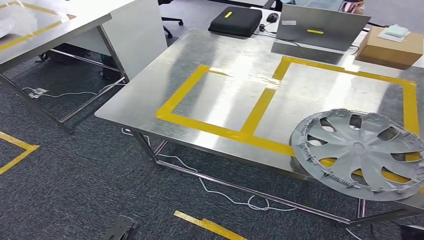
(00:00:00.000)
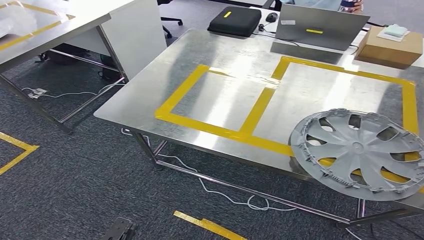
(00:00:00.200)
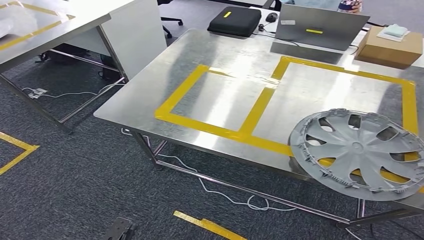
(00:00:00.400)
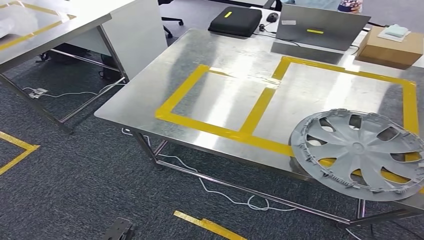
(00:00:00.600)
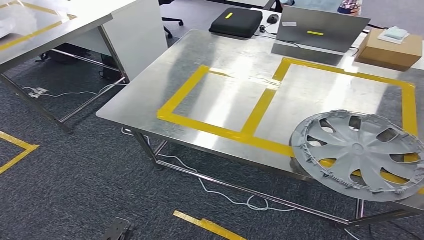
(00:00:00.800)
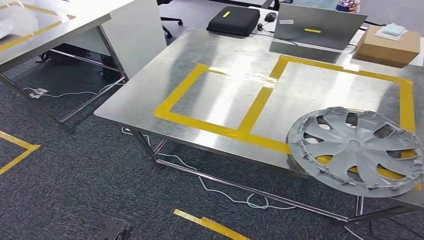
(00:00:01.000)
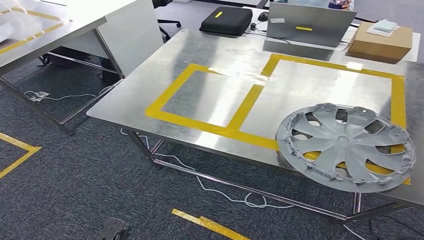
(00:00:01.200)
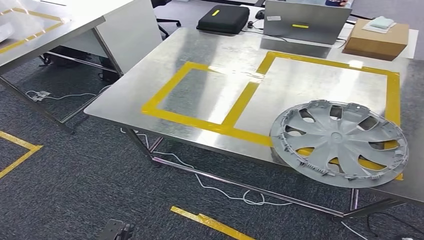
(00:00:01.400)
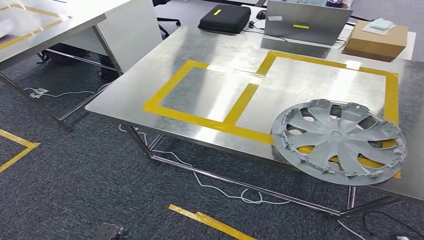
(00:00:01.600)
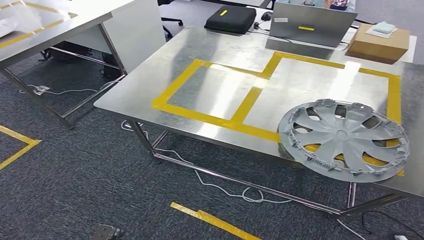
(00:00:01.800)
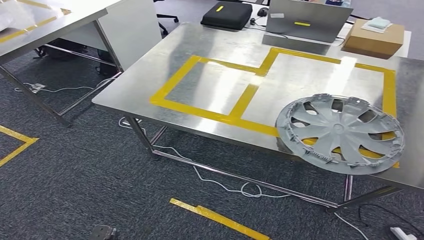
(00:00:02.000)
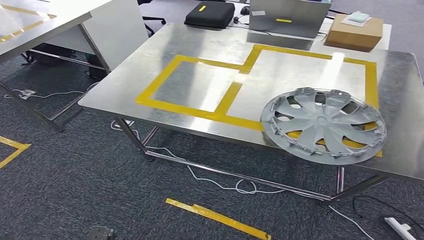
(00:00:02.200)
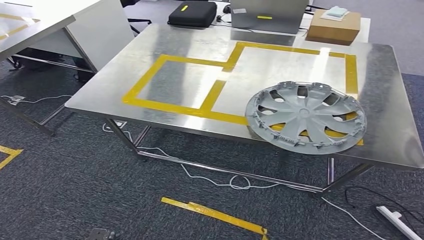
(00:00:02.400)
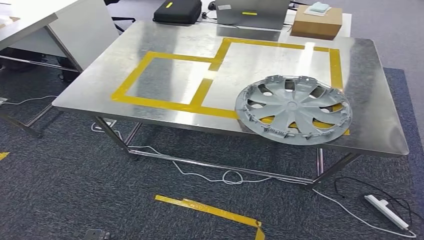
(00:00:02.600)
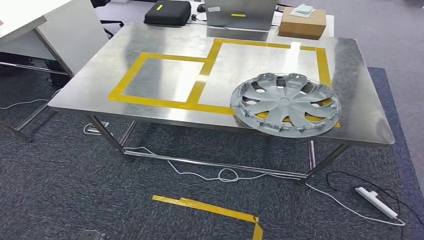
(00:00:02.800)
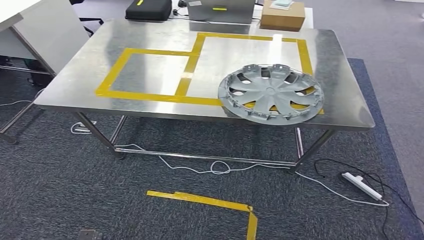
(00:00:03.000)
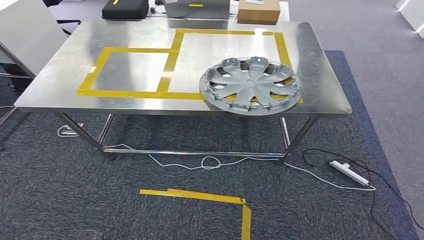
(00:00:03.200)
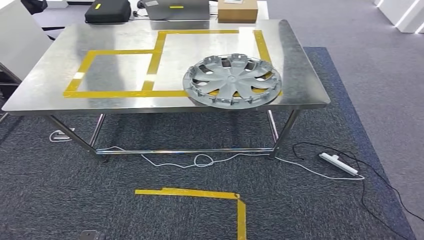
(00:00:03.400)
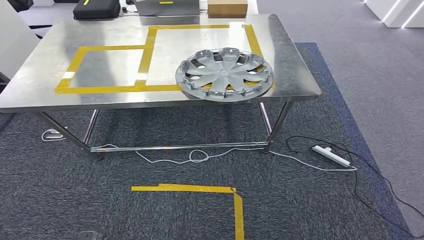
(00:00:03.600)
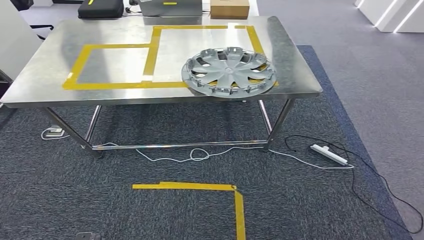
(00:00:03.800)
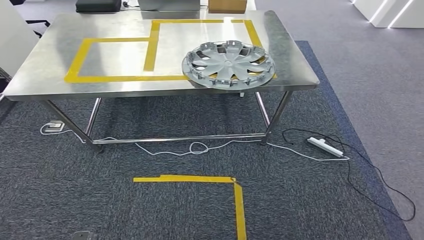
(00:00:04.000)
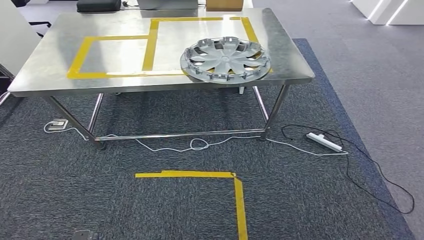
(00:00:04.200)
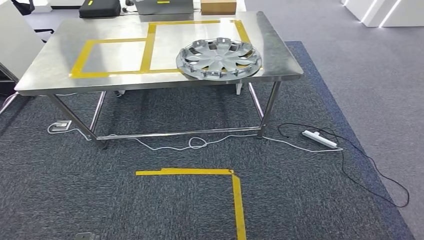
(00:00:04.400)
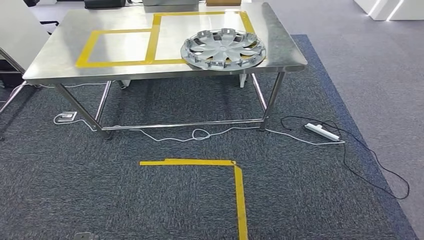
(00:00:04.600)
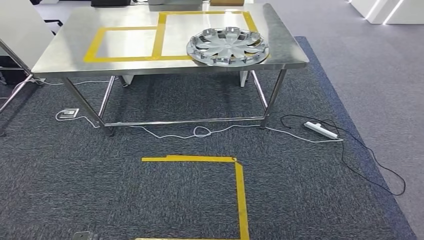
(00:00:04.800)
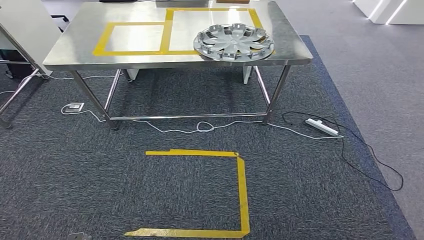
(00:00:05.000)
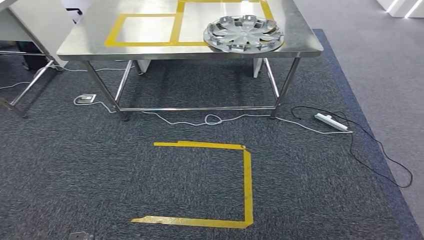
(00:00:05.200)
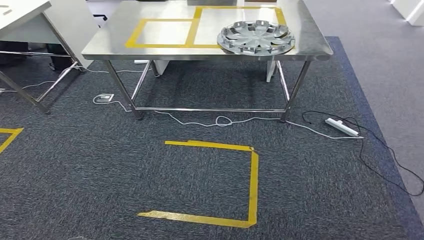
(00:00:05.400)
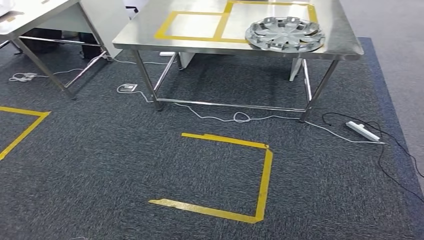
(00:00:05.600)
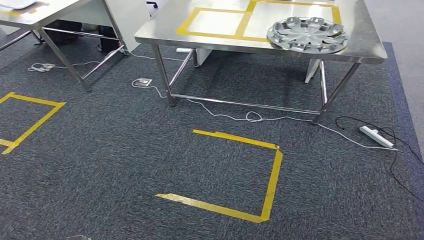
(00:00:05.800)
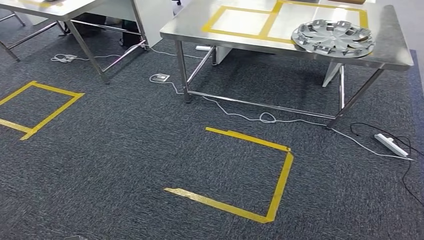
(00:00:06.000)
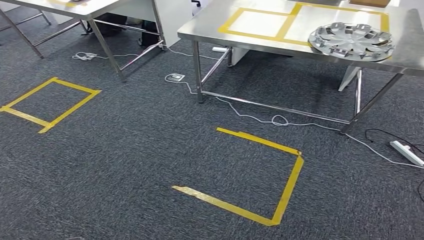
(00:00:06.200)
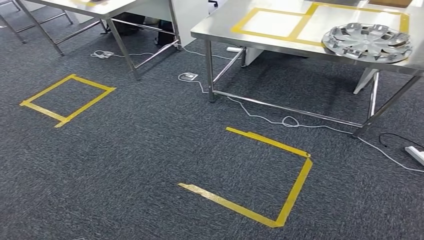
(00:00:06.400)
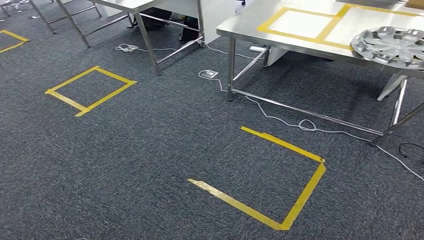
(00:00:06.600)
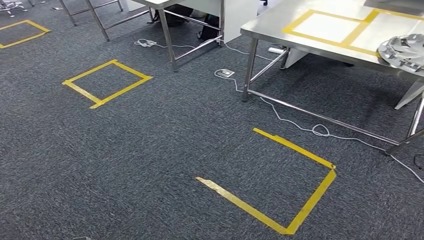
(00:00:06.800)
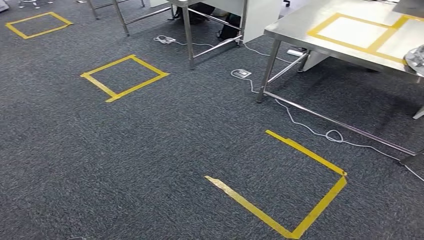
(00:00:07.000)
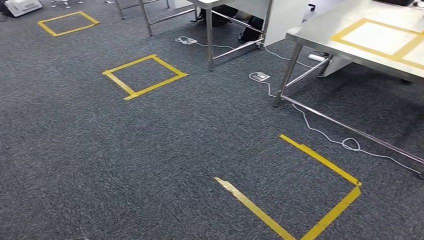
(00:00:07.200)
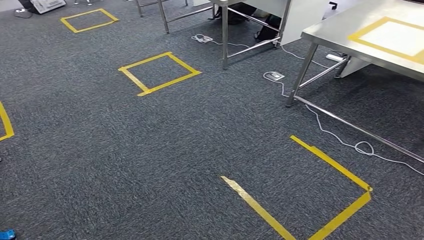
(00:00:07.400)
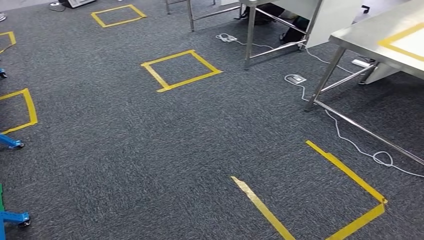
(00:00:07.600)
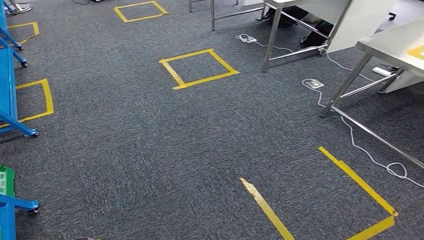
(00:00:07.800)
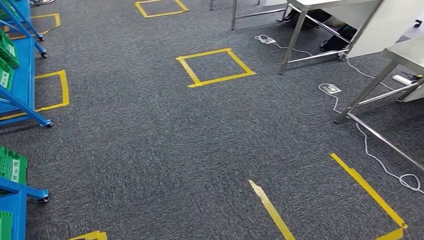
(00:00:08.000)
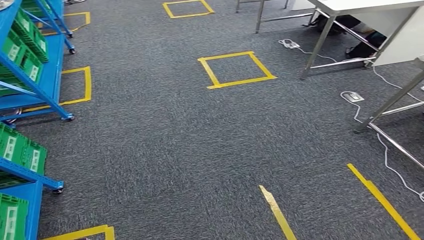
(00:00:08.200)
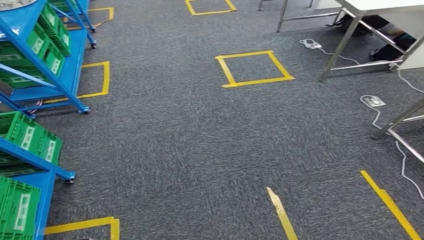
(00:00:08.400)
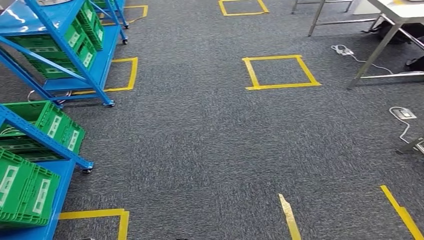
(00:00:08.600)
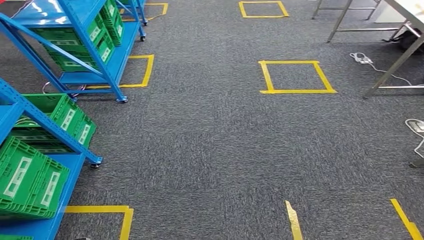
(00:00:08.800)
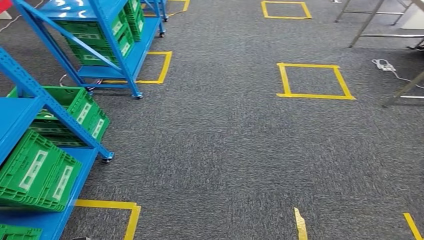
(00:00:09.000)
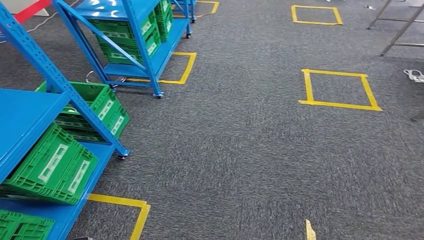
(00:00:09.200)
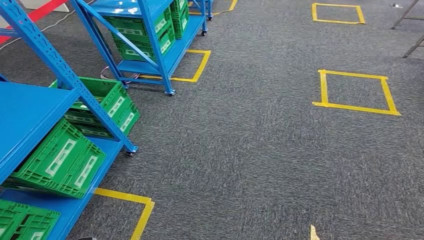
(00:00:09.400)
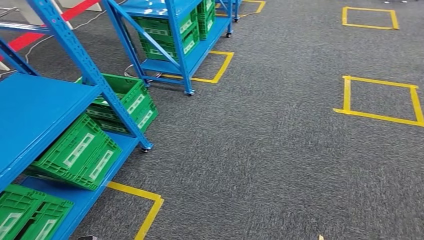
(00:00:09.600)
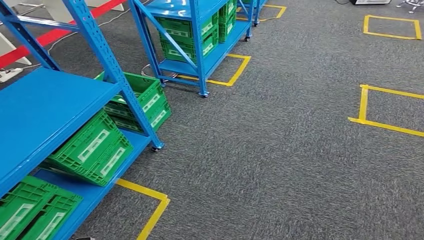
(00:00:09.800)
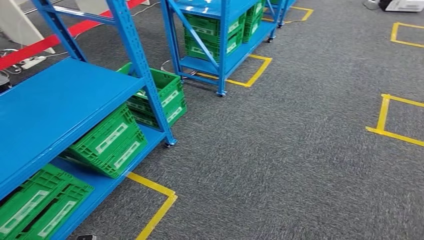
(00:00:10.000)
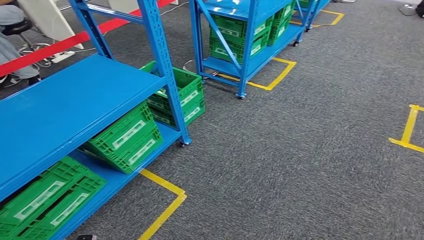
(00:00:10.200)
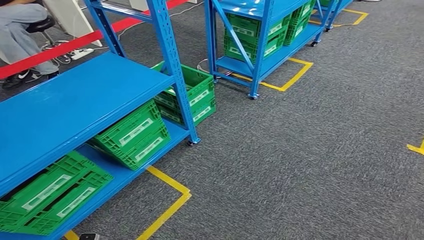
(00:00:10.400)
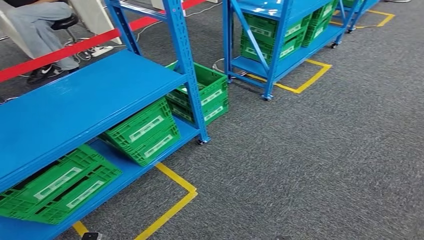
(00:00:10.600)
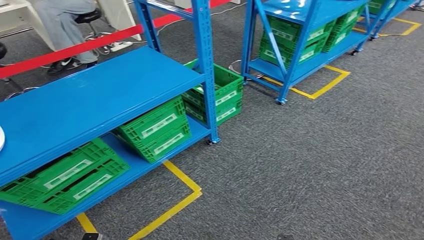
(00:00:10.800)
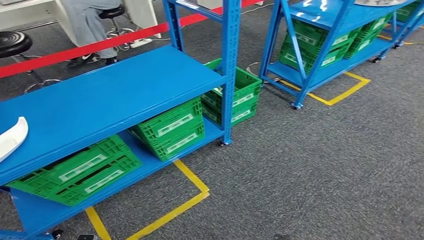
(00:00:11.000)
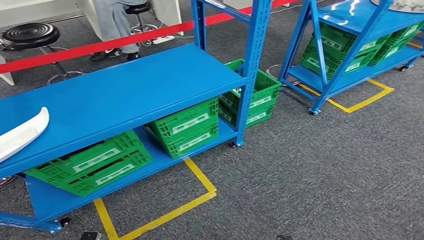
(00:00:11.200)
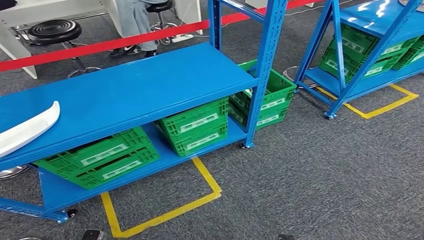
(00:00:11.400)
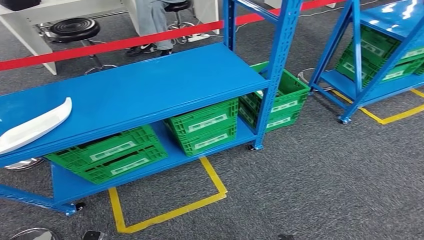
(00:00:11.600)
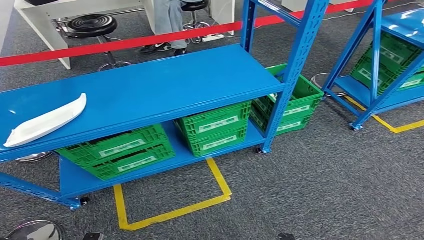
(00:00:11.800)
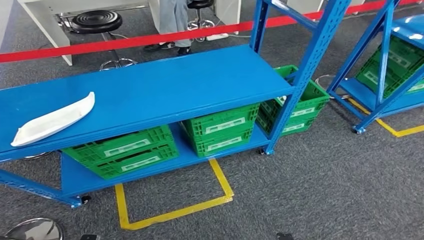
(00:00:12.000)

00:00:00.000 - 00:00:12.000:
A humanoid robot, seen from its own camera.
Step, 00:00:00.000 - 00:00:05.000: Insert the small component into the corresponding slot on the workbench.

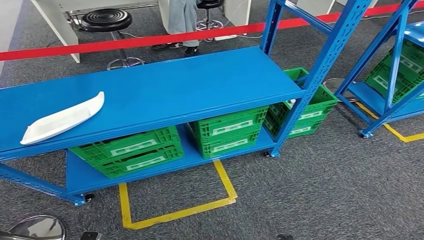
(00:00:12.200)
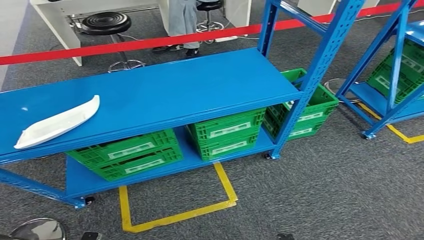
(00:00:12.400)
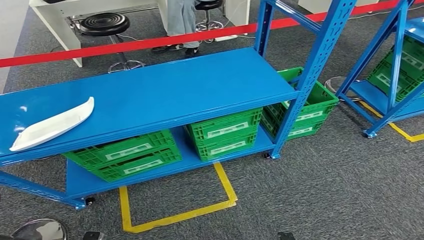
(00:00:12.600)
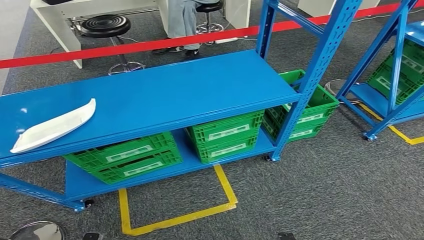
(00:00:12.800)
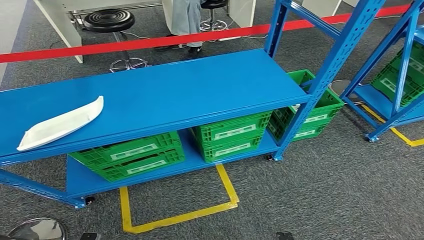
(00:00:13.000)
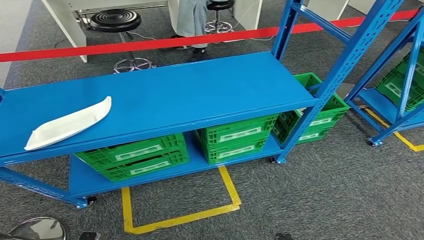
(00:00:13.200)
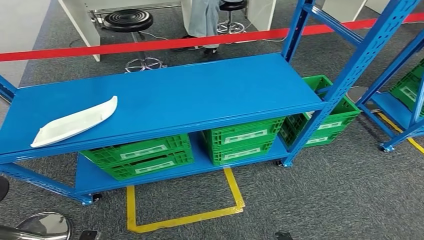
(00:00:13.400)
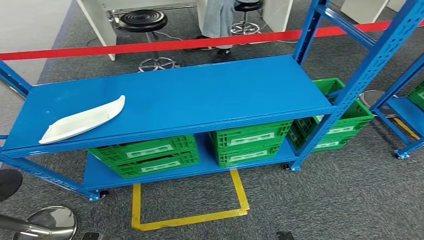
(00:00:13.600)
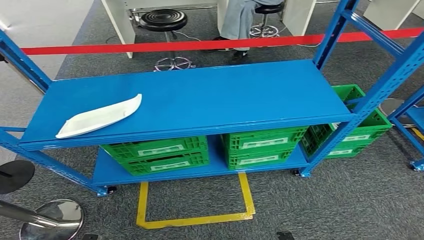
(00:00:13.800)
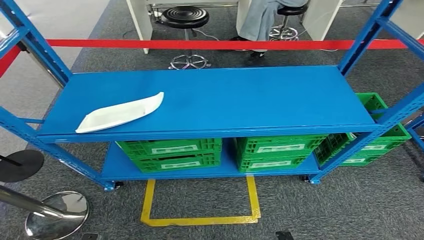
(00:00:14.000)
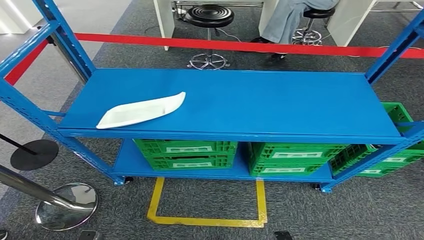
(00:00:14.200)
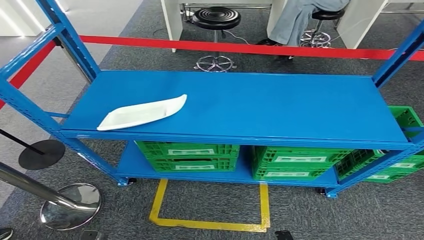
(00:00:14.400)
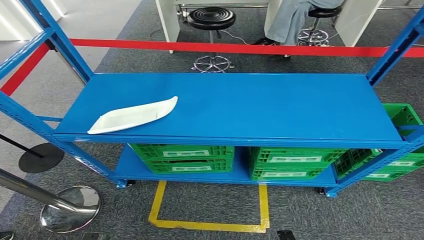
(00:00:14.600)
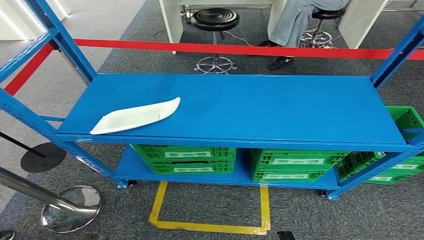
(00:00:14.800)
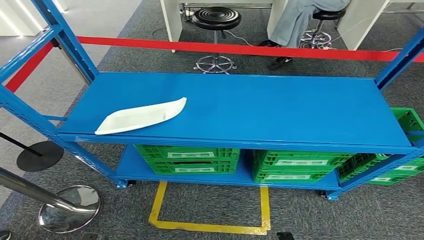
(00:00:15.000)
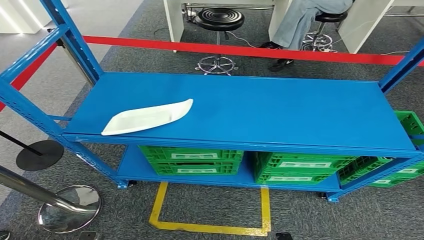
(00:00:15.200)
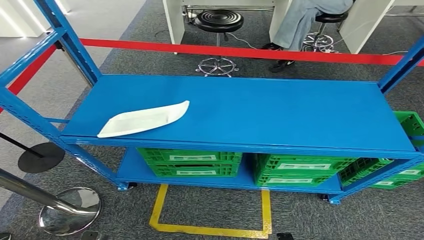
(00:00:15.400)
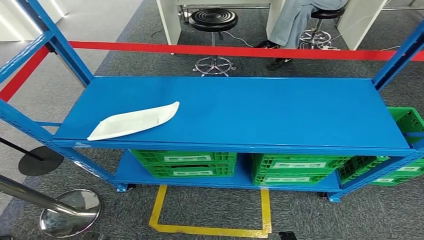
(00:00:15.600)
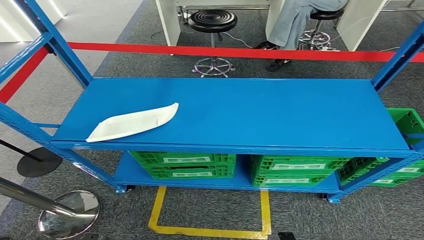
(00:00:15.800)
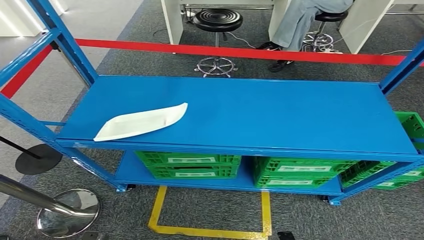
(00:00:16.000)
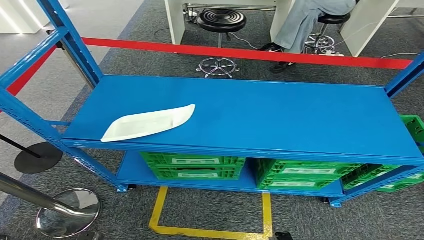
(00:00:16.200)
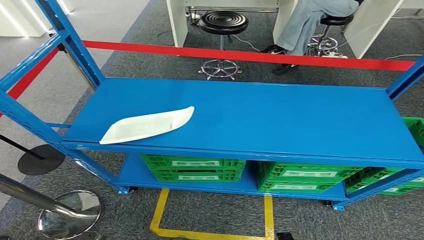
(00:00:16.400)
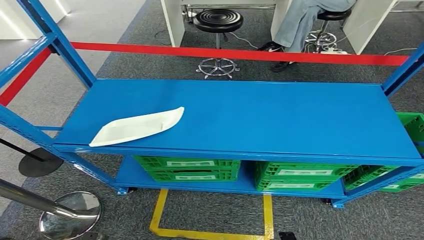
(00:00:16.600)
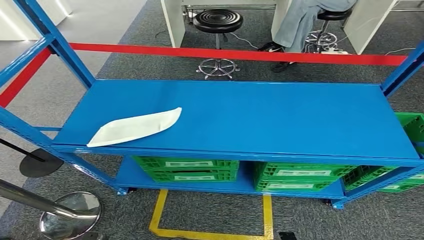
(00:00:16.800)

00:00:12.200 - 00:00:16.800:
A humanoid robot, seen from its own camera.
Step, 00:00:12.200 - 00:00:16.600: Return to the initial position at the workbench.
